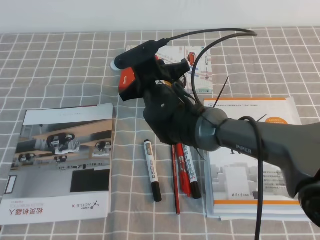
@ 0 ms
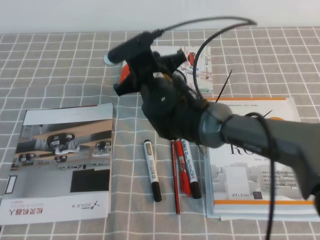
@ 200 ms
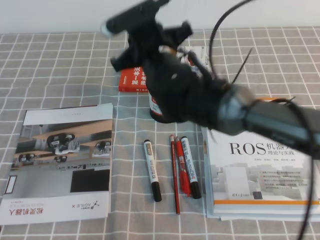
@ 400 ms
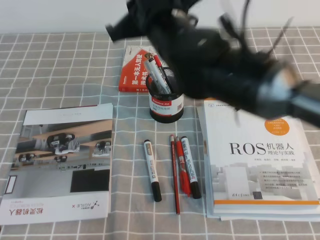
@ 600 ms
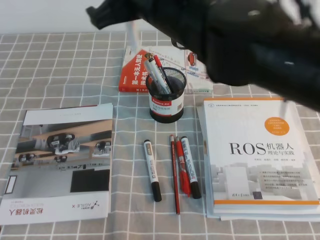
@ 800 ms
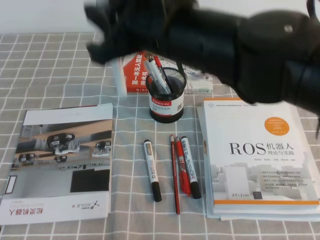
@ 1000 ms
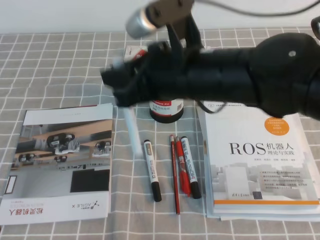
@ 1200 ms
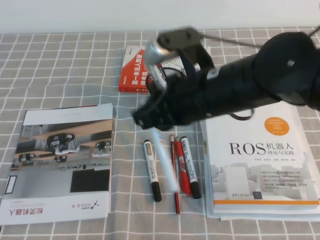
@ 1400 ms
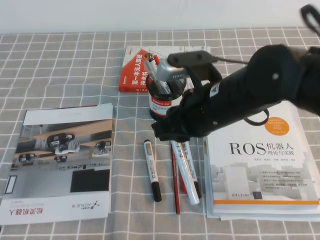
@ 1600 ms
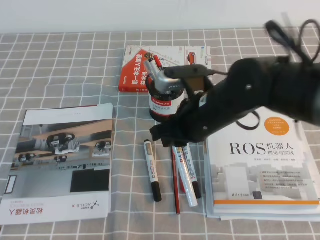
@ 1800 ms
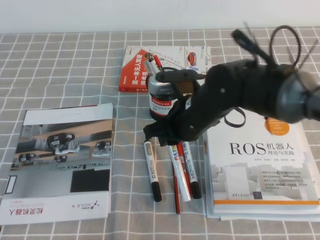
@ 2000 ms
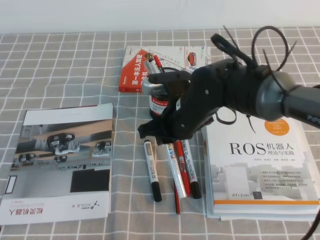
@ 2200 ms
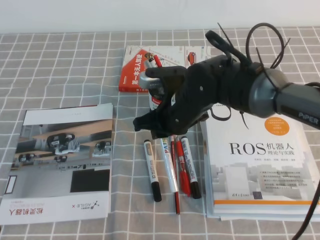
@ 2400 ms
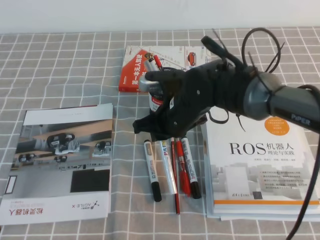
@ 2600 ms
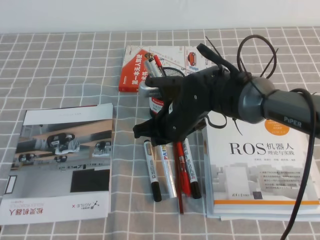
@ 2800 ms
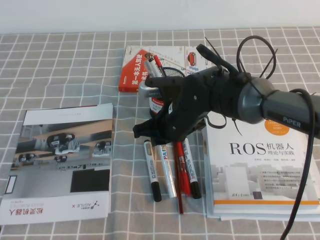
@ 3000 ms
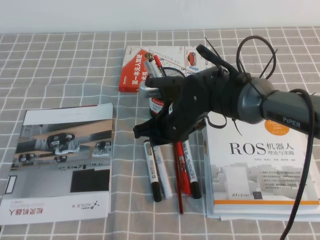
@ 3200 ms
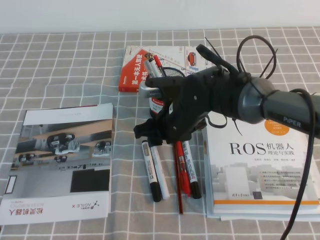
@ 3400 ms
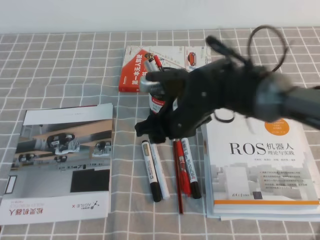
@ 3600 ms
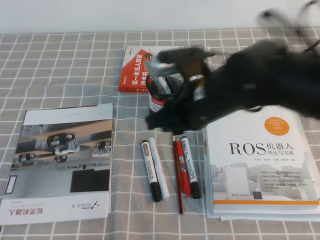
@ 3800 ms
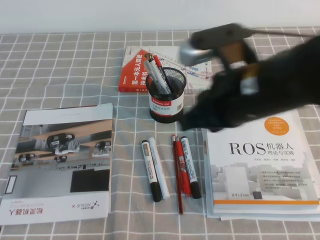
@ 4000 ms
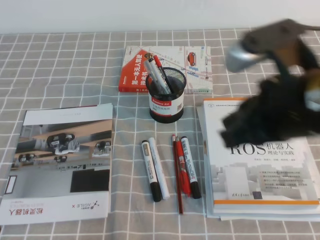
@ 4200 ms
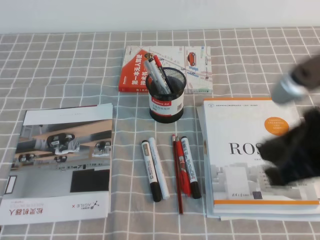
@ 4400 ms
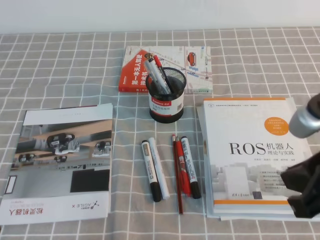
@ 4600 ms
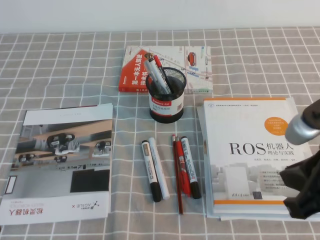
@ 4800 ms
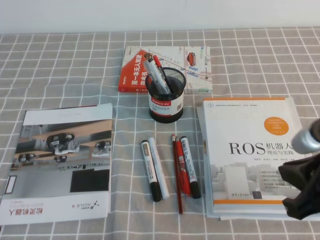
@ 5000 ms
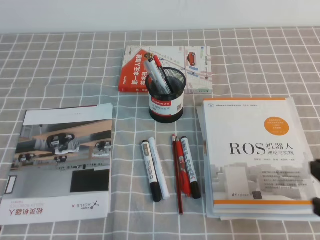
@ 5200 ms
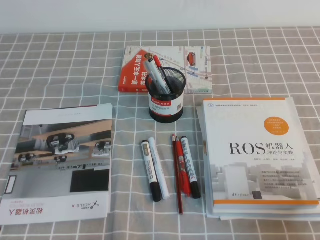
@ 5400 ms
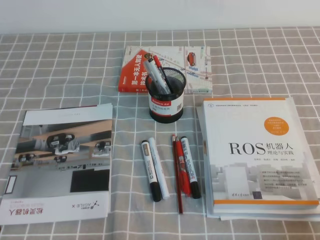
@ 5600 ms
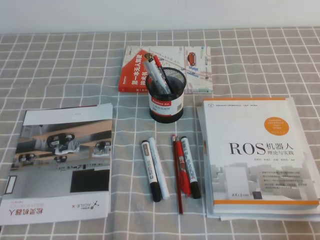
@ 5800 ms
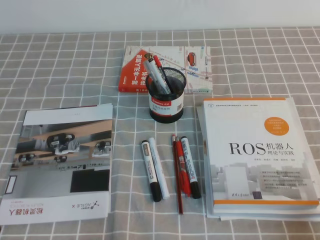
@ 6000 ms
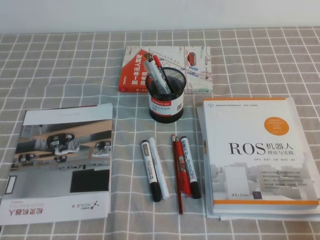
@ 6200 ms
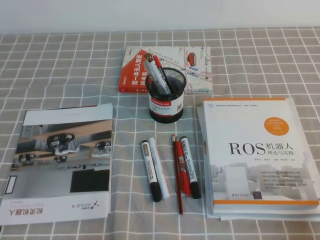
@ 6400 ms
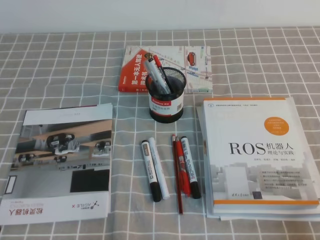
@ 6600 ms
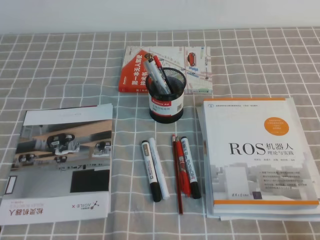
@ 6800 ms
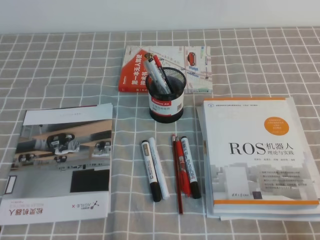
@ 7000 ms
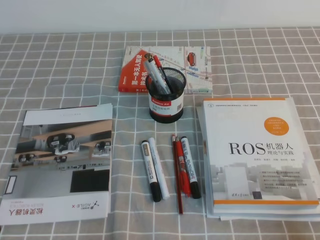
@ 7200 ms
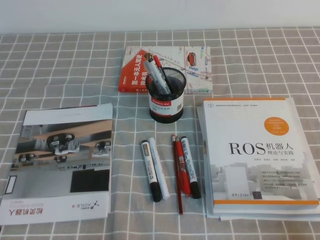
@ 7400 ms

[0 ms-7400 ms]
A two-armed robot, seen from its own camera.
Step, 0 ms to 7400 ms: Pick up the pen from the pen holder.
0 ms to 1400 ms: The right gripper is displaced backward, upward and to the right by approximately 15 cm.
1400 ms to 3000 ms: The right gripper heads downward and forward, covering roughly 15 cm.
3000 ms to 4400 ms: The right gripper goes roughly 30 cm backward, upward and to the right, and opens and closes again.
4400 ms to 6000 ms: The right gripper goes about 25 cm downward, to the right and backward.
